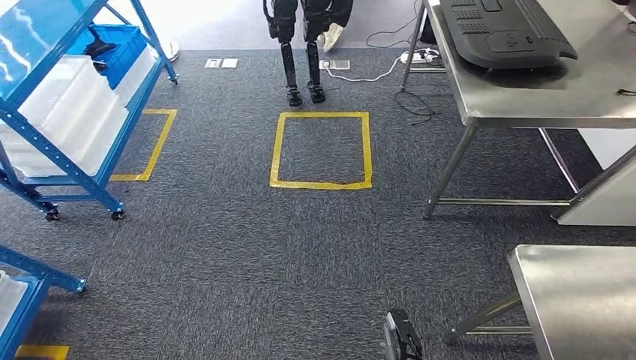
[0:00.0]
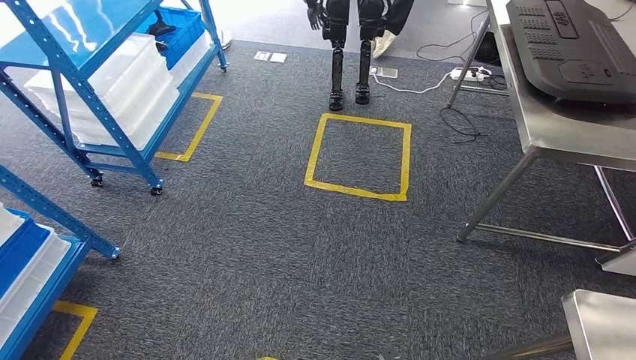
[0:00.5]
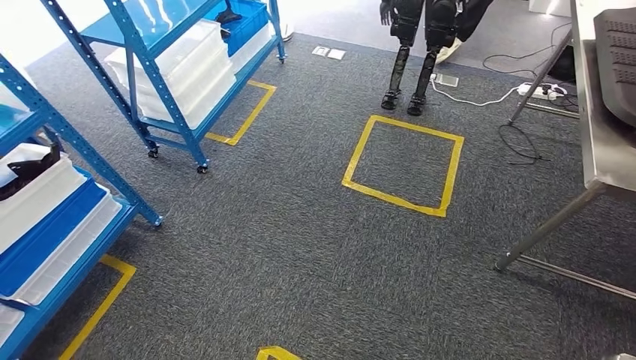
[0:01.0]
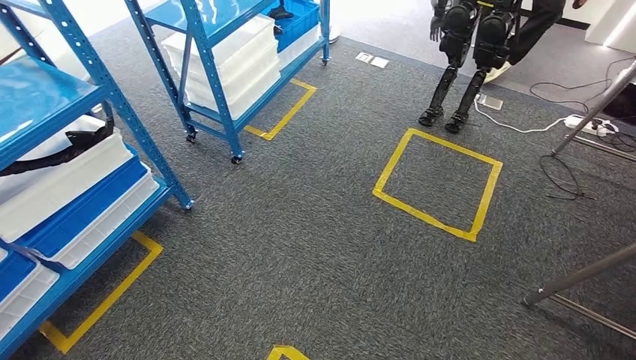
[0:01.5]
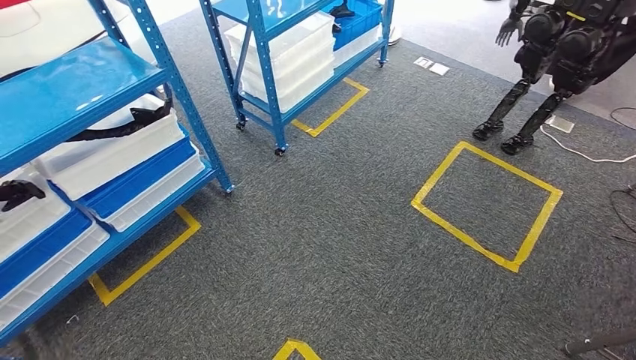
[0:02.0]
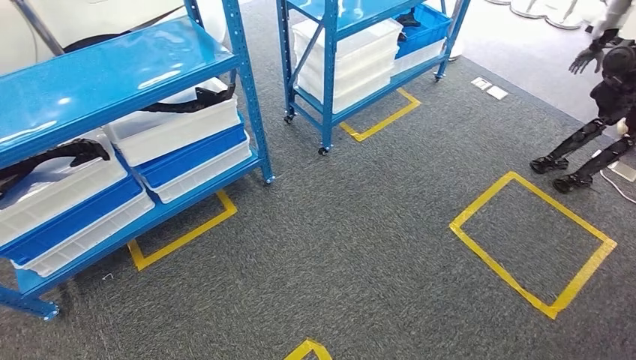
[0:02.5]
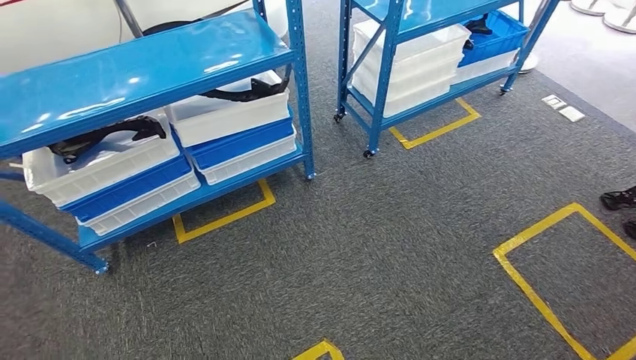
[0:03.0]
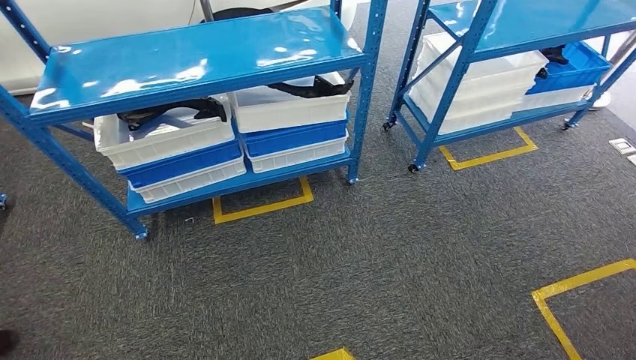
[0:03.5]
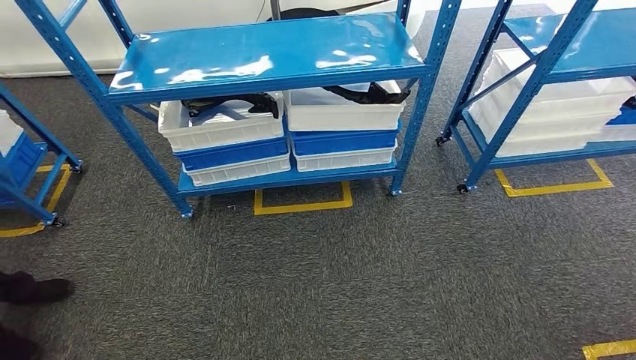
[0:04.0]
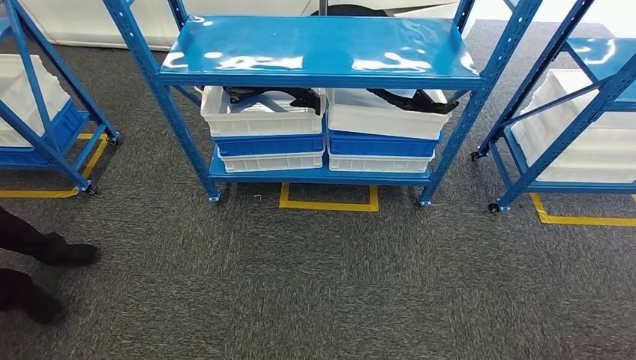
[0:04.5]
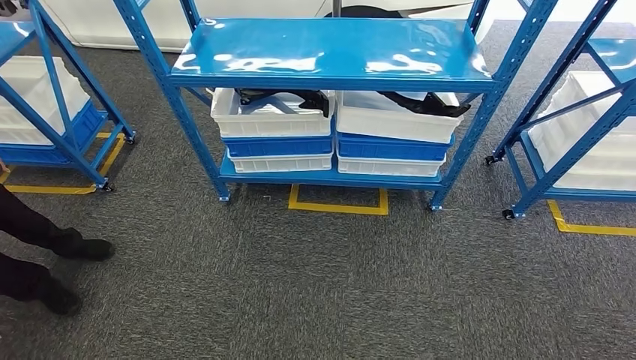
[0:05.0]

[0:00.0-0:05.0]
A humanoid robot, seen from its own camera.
Step, 0:00.0 to 0:05.0: Move to the initial position of the shelf.

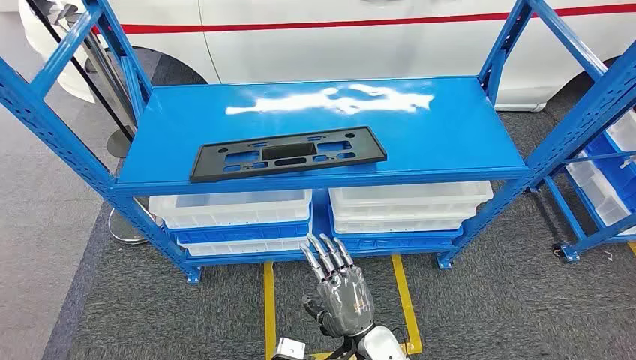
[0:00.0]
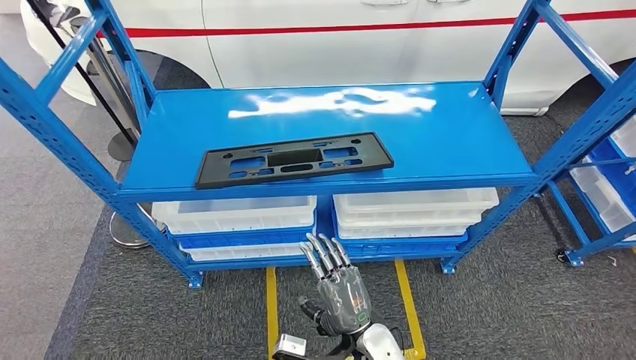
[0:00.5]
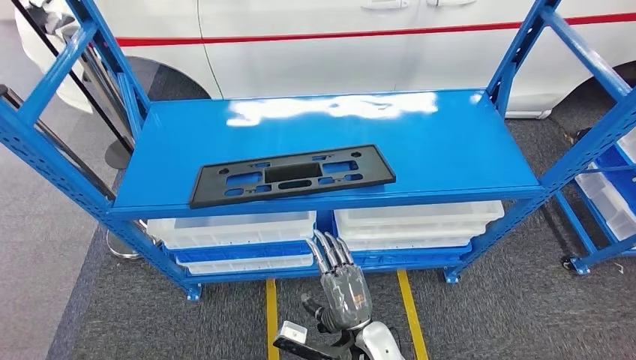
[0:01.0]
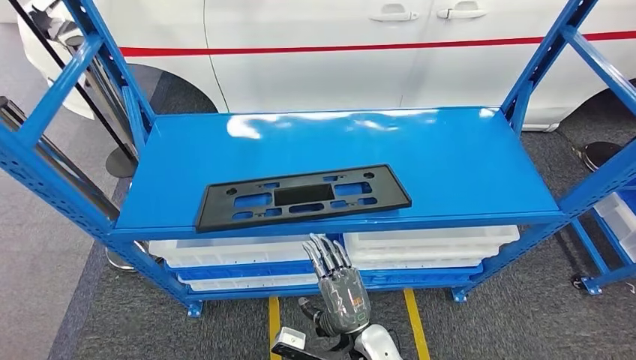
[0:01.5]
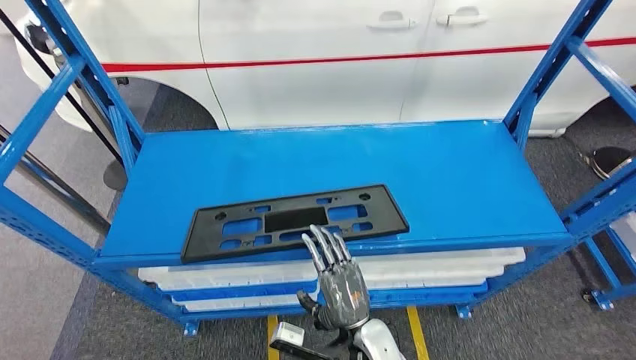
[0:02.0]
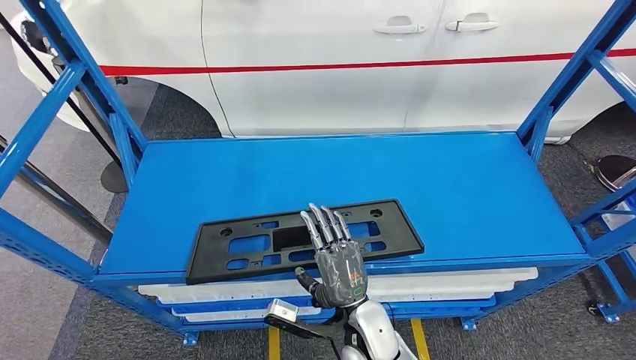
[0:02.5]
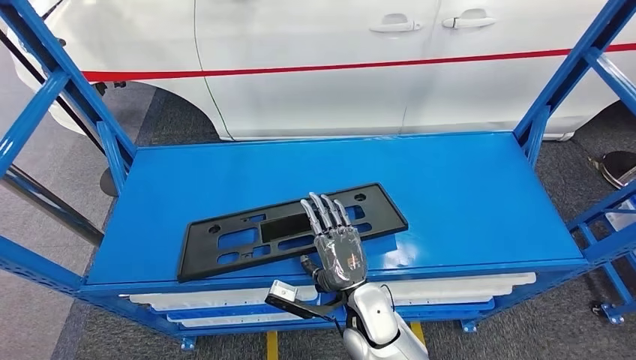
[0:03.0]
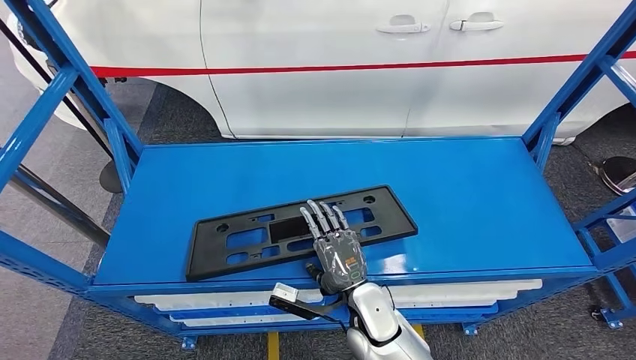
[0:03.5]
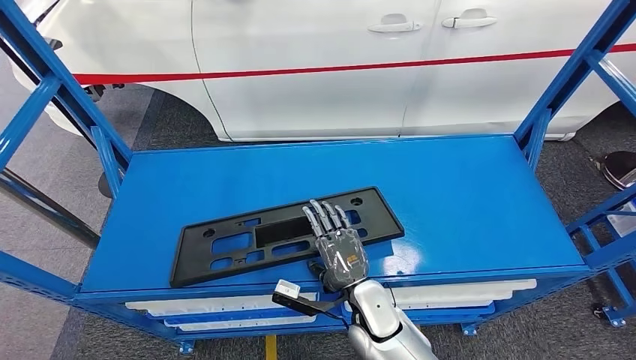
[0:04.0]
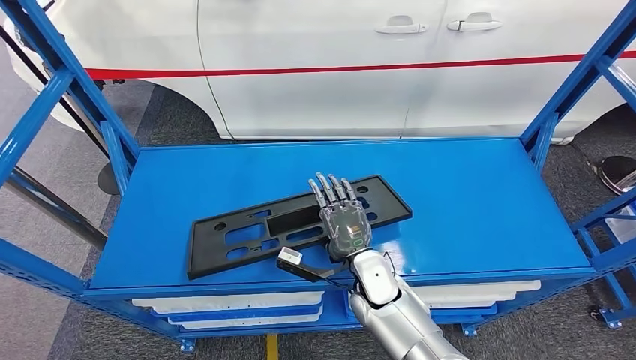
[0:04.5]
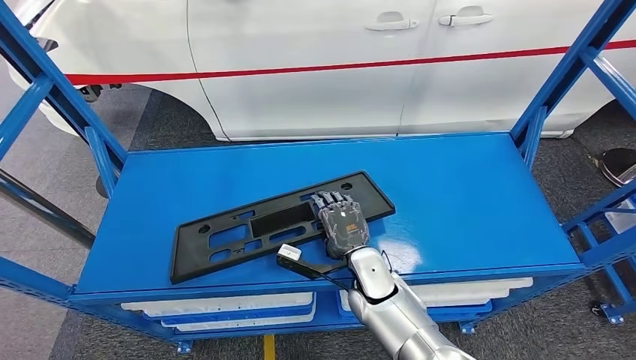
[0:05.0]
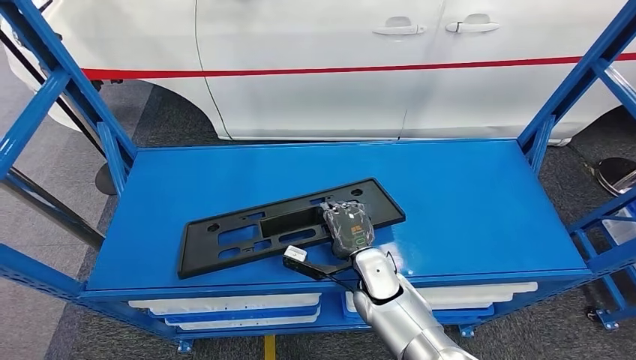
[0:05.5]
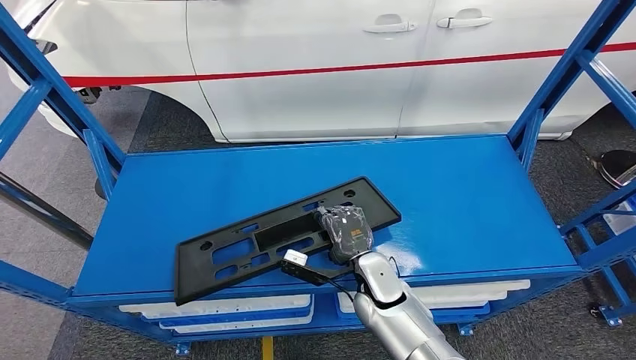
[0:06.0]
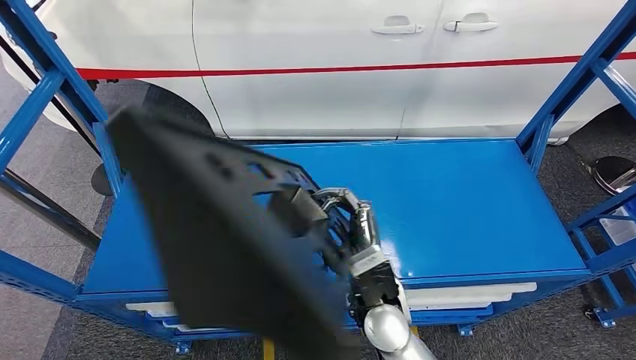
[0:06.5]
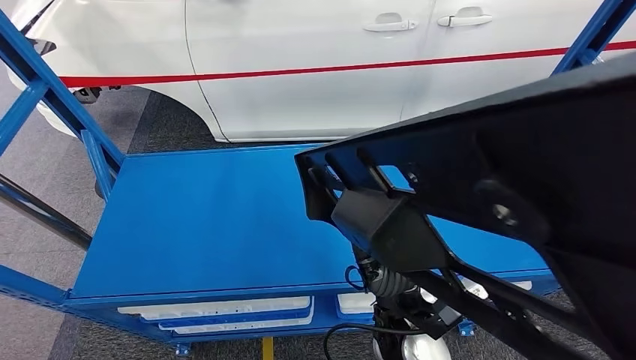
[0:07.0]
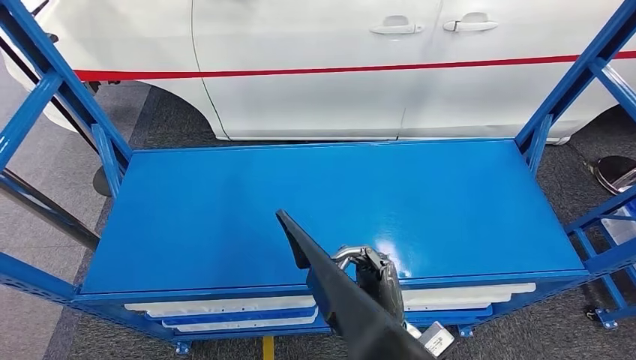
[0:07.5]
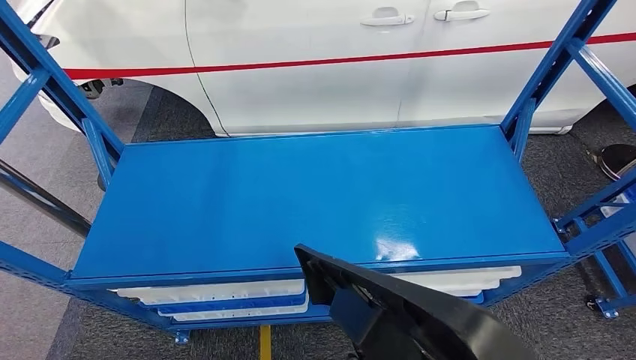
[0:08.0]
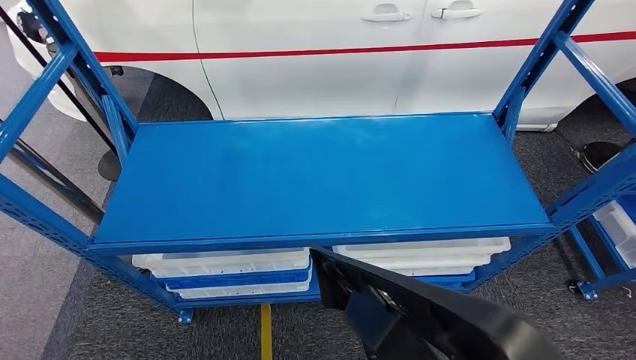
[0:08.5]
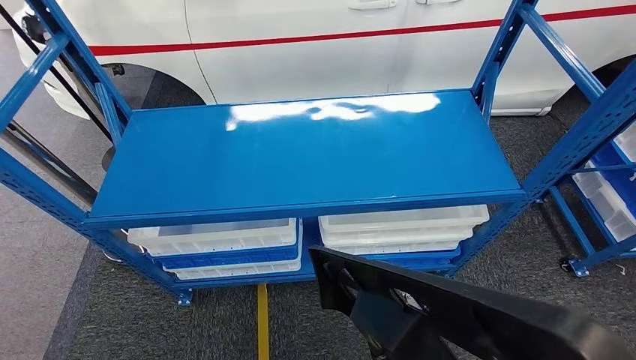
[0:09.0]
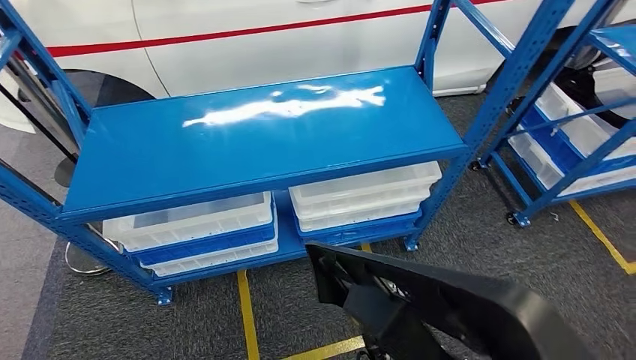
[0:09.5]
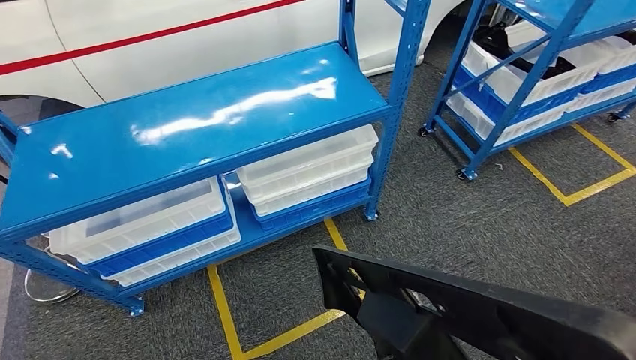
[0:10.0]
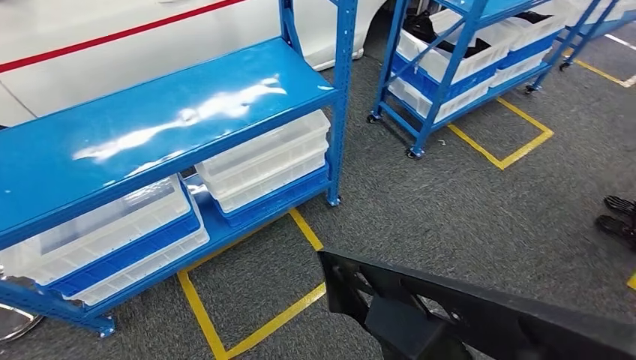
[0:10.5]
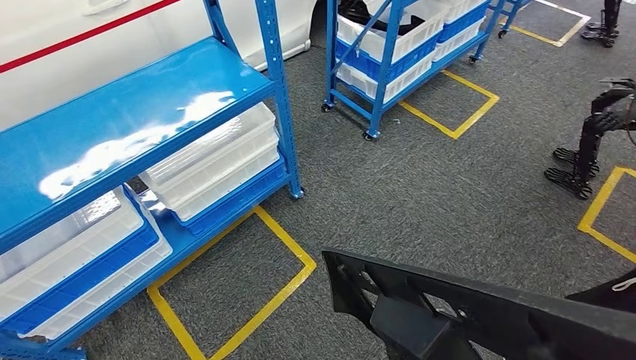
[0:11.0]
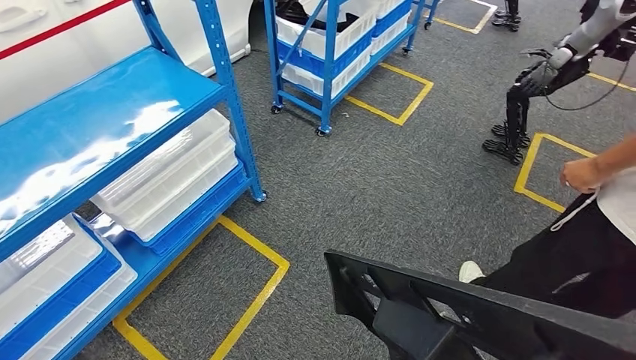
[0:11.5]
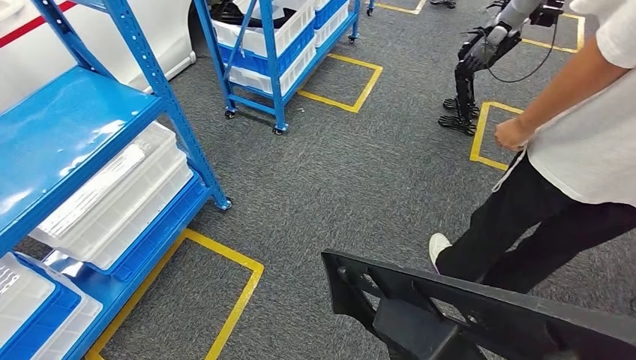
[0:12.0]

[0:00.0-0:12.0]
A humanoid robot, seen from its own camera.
Step, 0:00.0 to 0:09.5: Pick up the large material from the shelf.

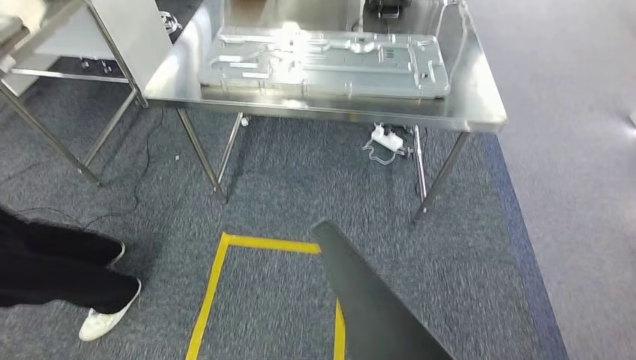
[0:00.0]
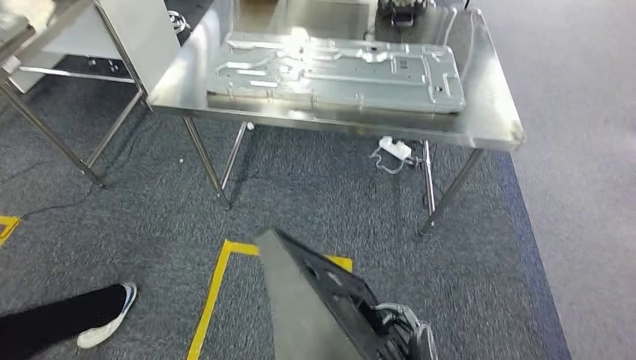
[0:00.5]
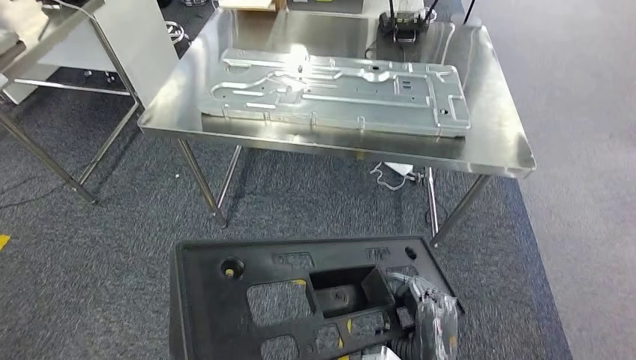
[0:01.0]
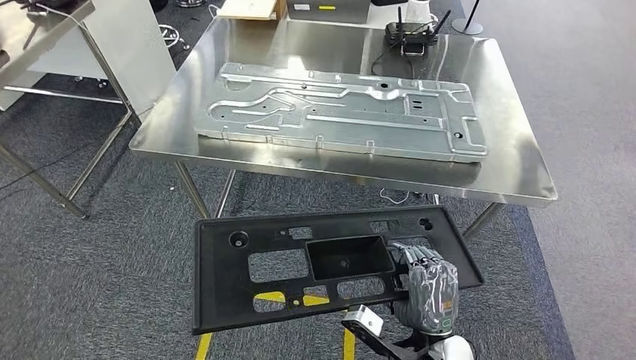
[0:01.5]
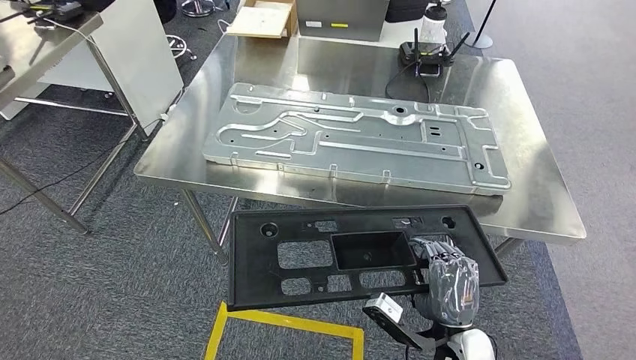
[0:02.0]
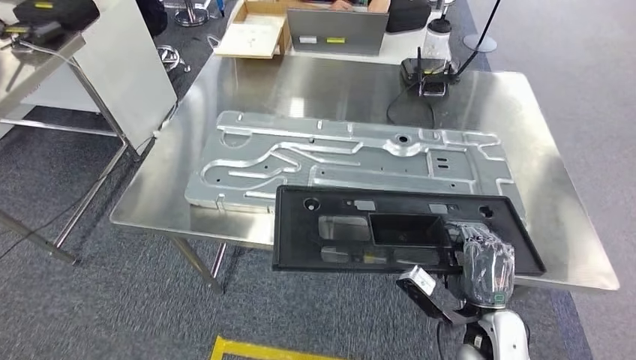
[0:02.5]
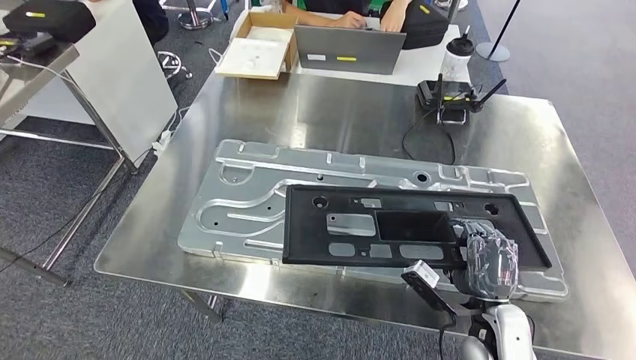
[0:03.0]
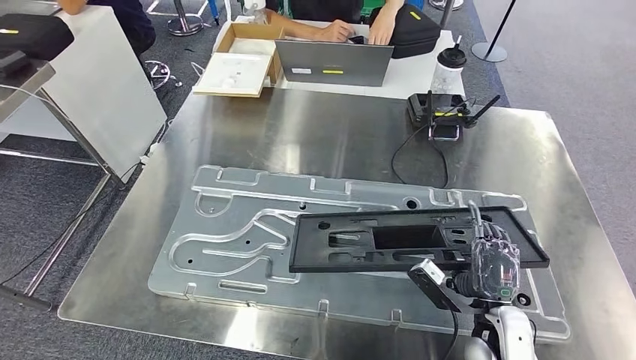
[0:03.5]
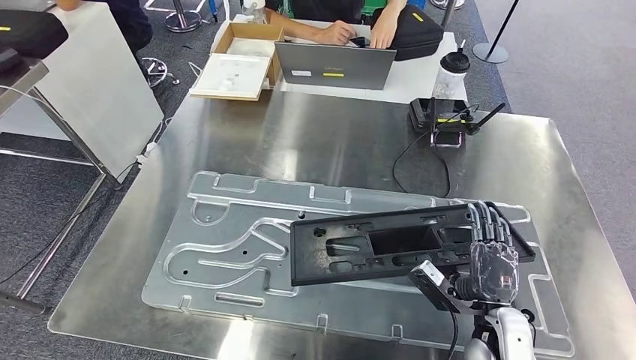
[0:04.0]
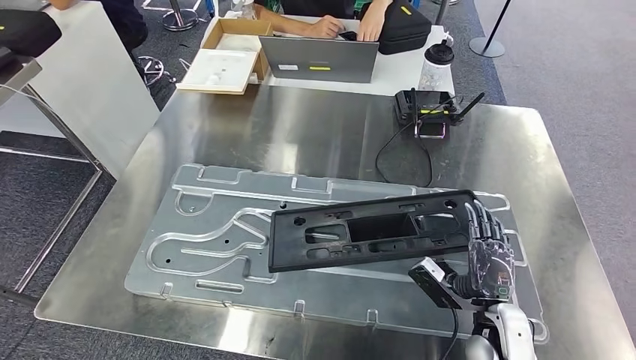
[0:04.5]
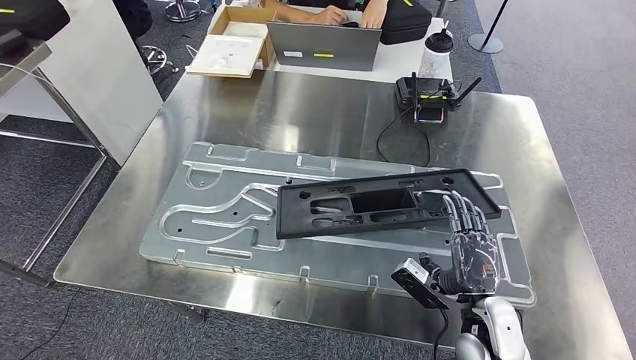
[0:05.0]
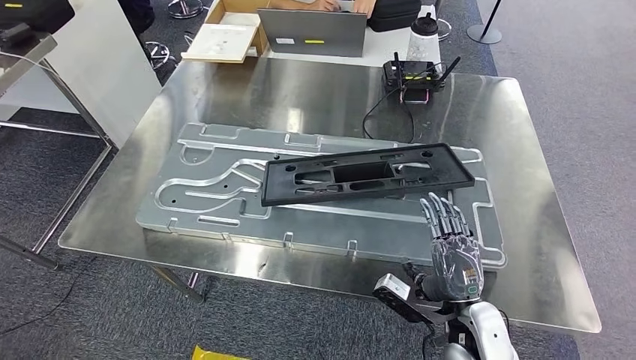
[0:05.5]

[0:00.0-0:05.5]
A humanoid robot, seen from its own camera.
Step, 0:00.0 to 0:02.0: Move the large material to the workbench.
